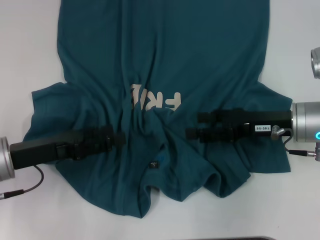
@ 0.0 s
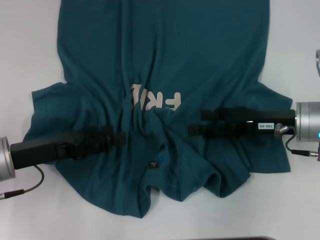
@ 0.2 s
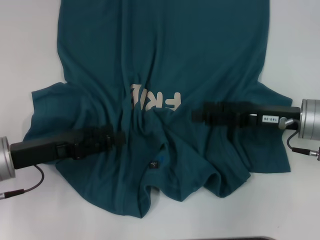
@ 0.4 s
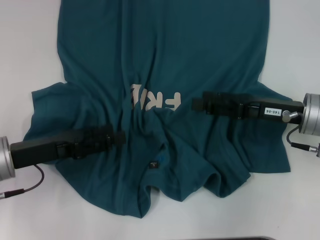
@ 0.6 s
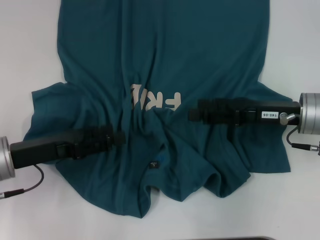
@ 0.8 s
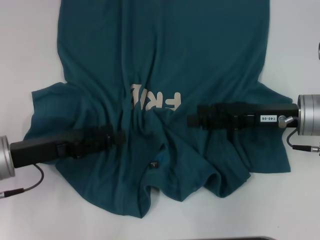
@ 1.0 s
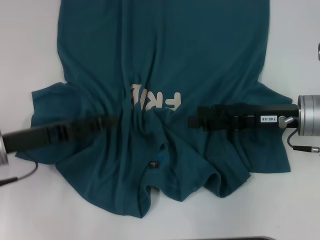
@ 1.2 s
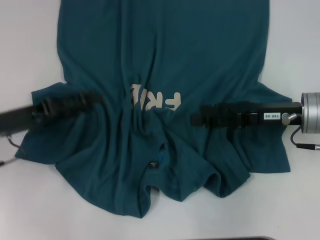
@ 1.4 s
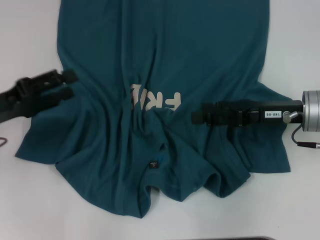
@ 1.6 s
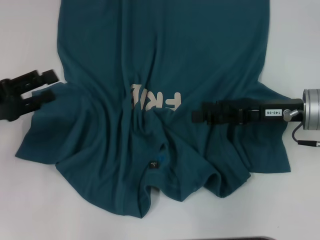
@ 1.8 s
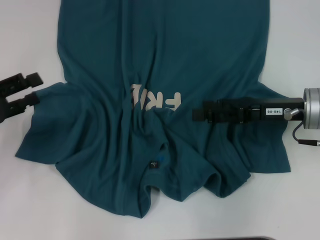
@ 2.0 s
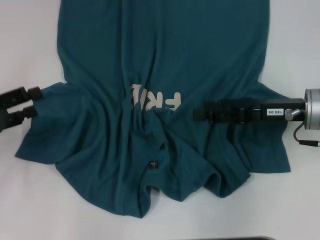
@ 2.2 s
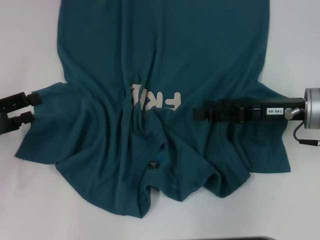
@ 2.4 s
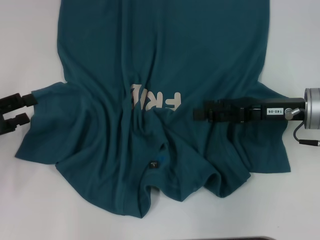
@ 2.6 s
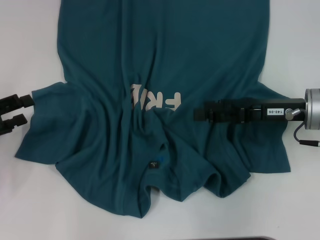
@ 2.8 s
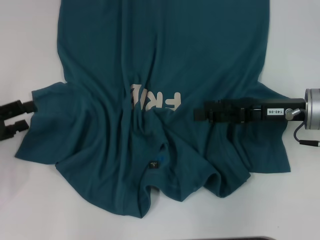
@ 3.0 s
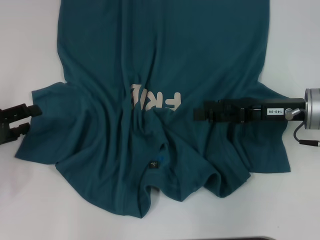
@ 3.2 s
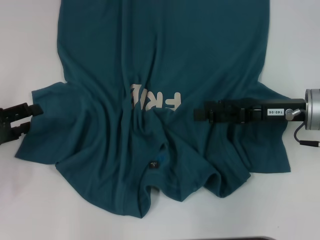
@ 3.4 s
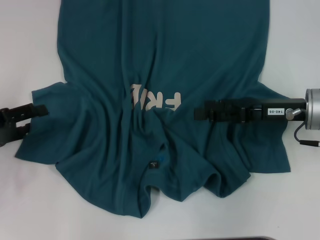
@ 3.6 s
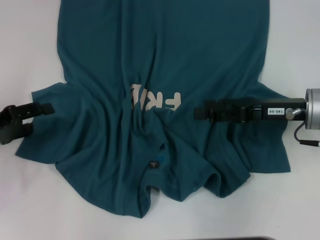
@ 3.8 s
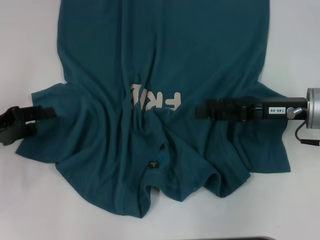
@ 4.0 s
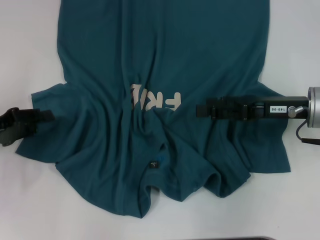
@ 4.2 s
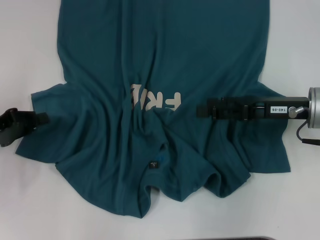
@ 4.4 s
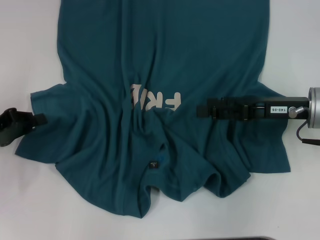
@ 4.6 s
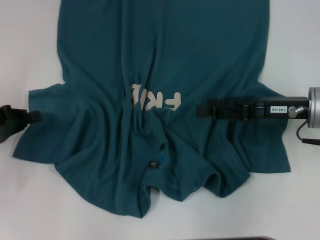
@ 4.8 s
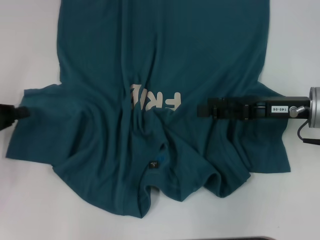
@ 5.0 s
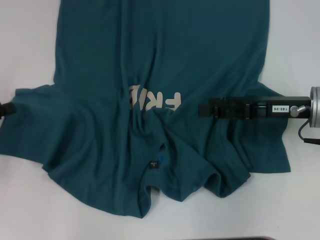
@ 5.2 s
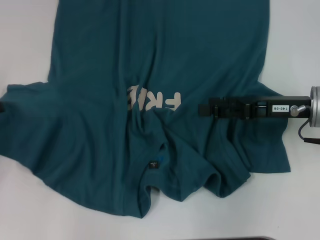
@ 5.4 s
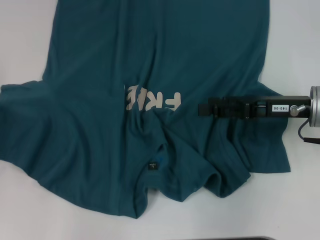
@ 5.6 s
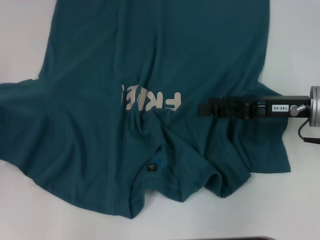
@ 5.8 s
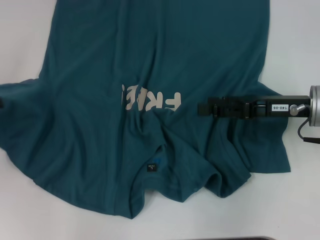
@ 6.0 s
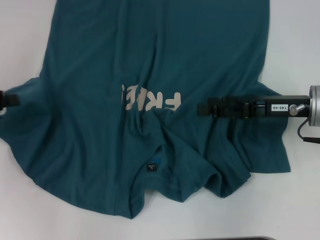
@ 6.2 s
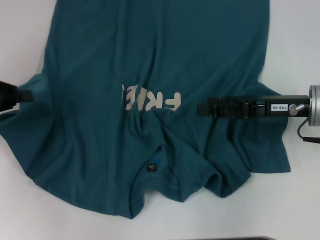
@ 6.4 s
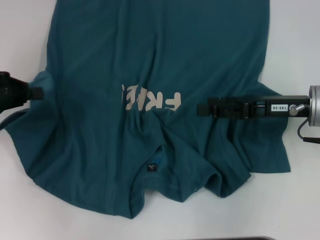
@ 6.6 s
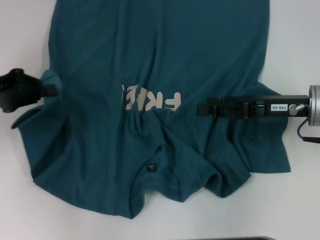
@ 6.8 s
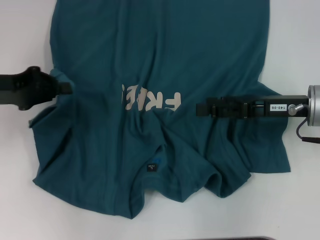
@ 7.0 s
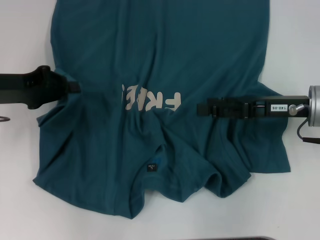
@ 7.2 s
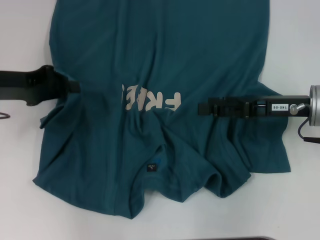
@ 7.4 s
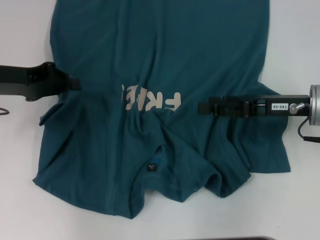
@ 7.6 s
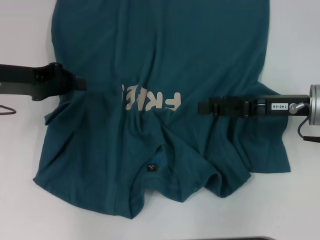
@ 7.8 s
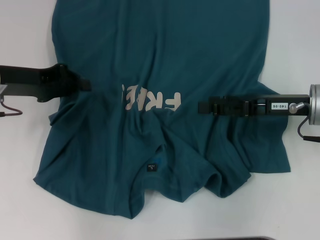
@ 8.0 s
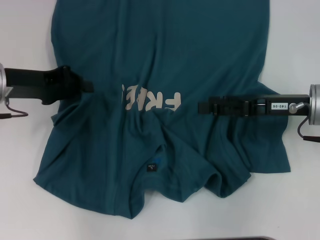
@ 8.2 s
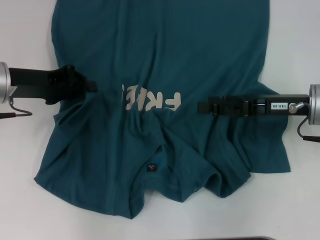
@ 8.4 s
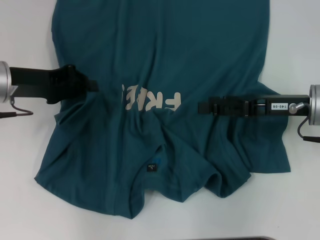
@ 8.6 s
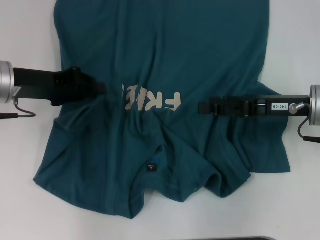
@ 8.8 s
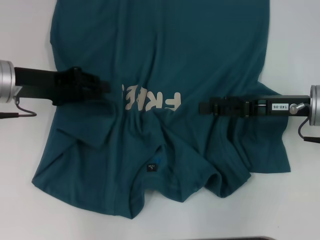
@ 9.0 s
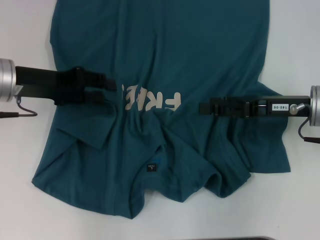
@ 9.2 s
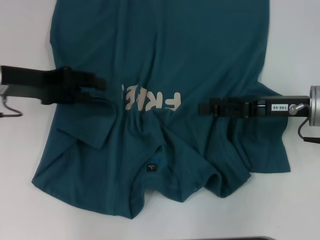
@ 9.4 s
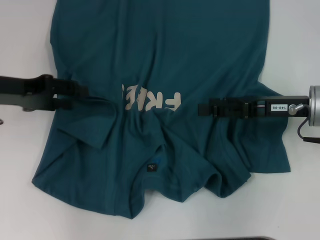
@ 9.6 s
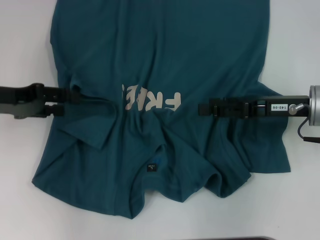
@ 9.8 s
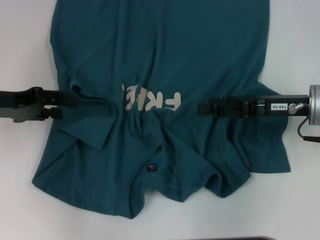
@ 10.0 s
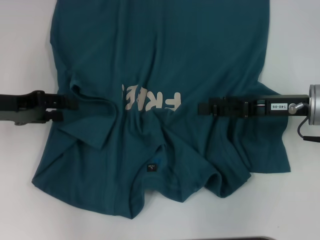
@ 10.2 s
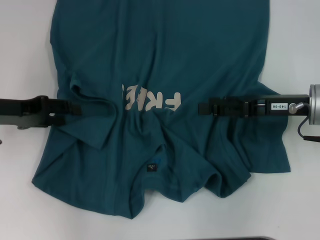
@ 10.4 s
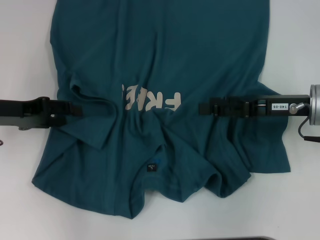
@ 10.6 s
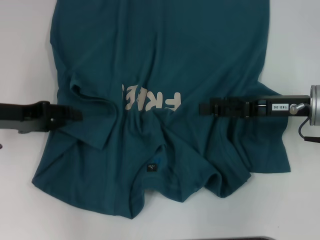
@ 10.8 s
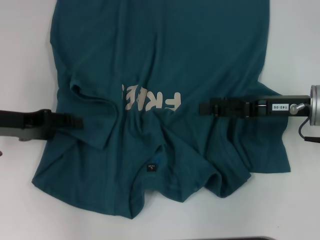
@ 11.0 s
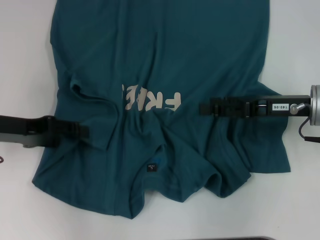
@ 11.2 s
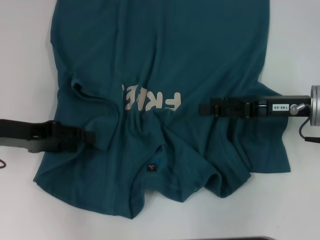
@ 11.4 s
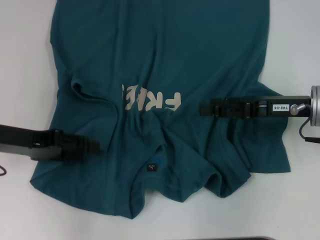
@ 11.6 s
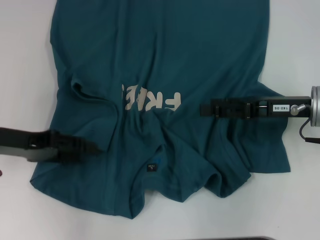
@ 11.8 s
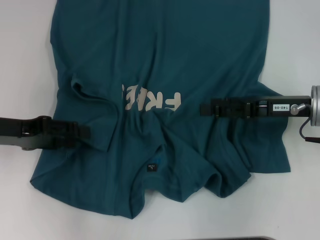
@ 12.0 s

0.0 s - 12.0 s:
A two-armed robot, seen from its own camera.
0.0 s - 1.6 s: The left gripper changes place by approximately 5 cm.
1.6 s - 3.0 s: The left gripper shifts roughly 5 cm to the left.
3.0 s - 4.4 s: The left gripper closes its fingers.
4.4 s - 6.0 s: The left gripper is displaced upward and to the left by roughly 10 cm.
6.0 s - 7.6 s: The left gripper goes roughly 10 cm to the right.
7.6 s - 9.0 s: There are only small adjustments of the grippers.
9.0 s - 10.4 s: The left gripper ends up roughly 5 cm from where it was, and opens its fingers.
10.4 s - 12.0 s: The grippers make only small movements.

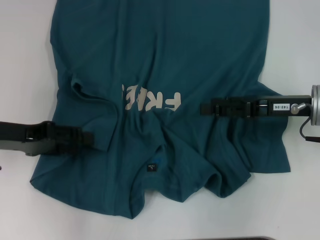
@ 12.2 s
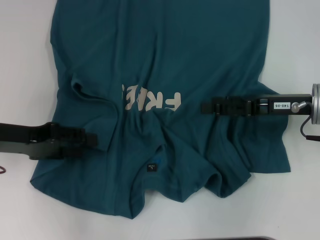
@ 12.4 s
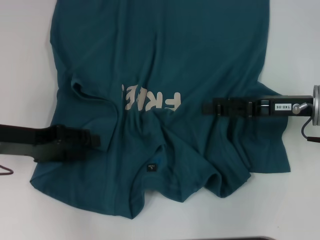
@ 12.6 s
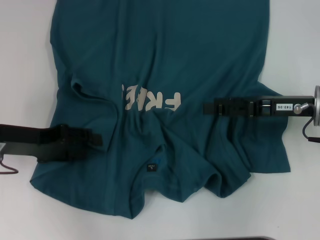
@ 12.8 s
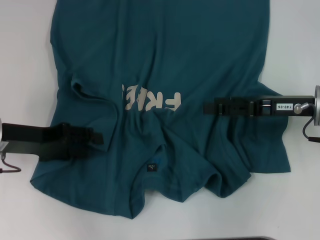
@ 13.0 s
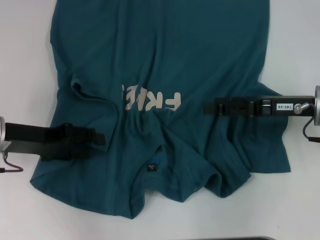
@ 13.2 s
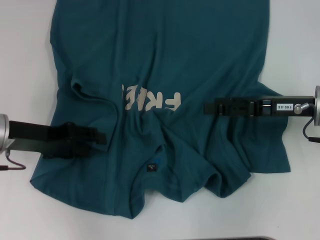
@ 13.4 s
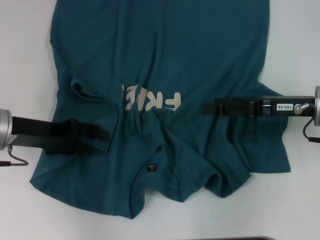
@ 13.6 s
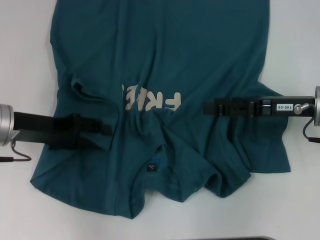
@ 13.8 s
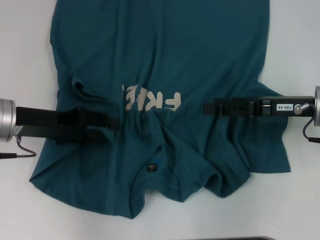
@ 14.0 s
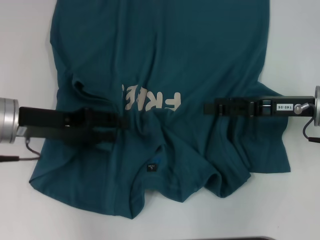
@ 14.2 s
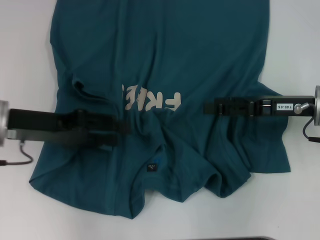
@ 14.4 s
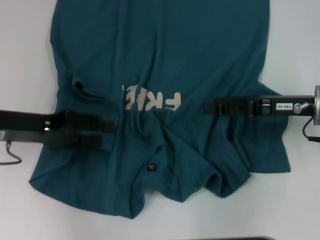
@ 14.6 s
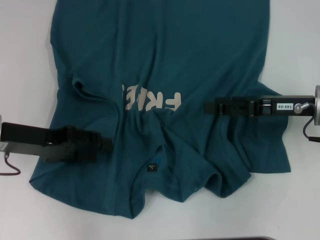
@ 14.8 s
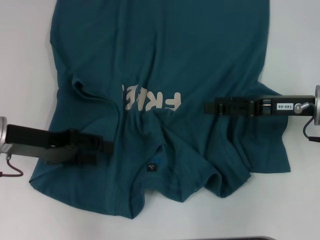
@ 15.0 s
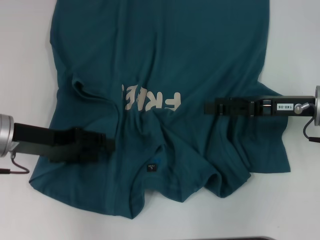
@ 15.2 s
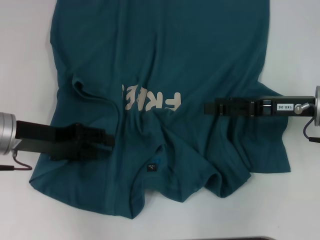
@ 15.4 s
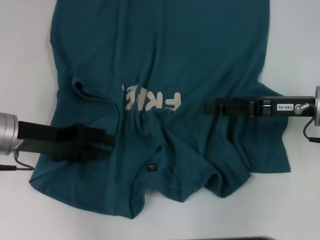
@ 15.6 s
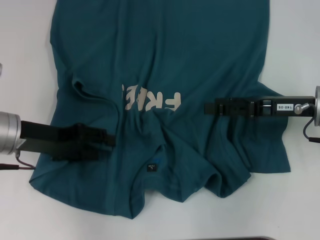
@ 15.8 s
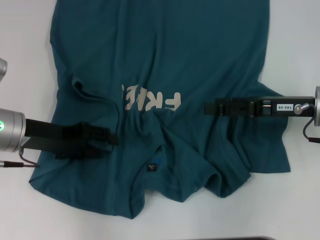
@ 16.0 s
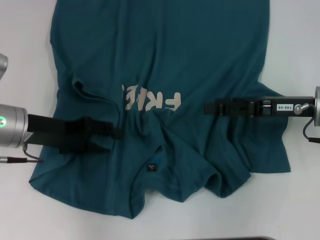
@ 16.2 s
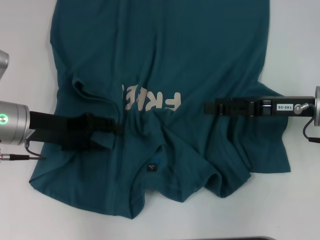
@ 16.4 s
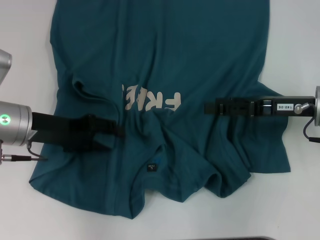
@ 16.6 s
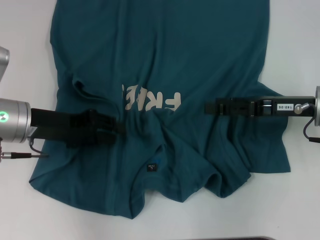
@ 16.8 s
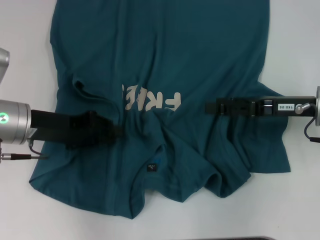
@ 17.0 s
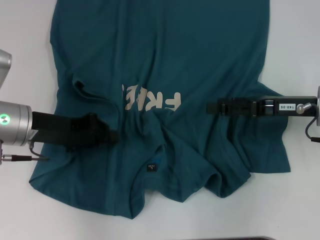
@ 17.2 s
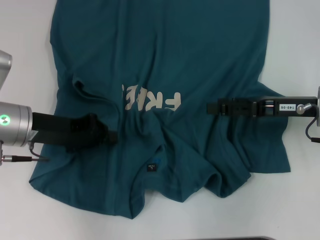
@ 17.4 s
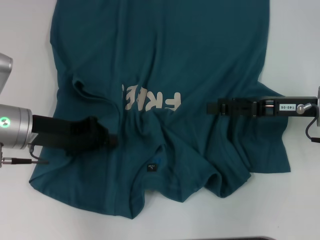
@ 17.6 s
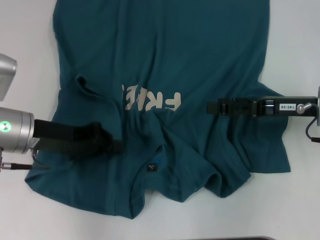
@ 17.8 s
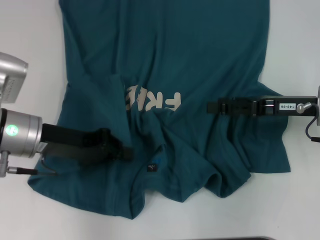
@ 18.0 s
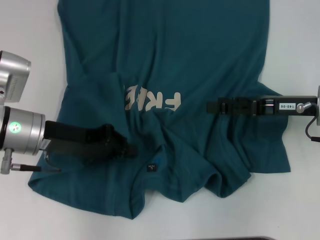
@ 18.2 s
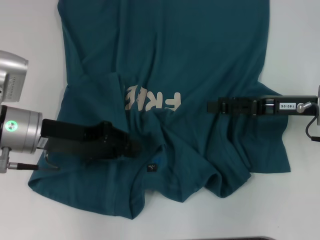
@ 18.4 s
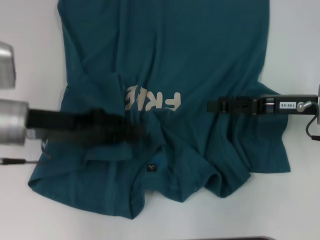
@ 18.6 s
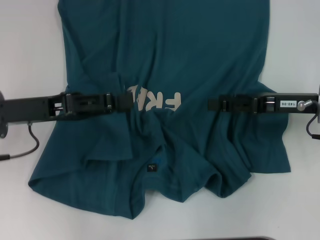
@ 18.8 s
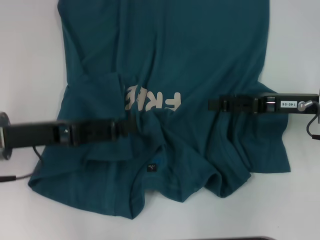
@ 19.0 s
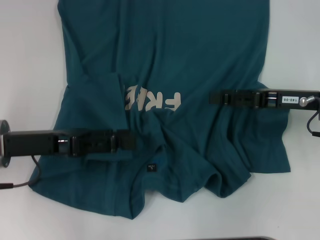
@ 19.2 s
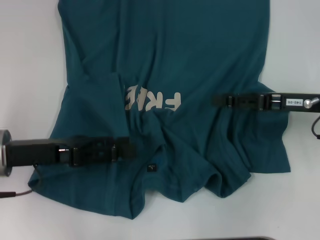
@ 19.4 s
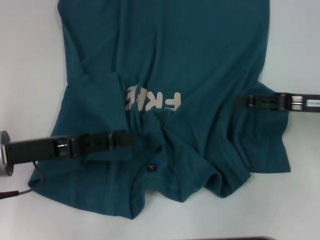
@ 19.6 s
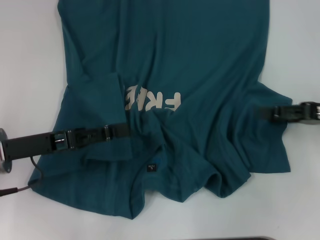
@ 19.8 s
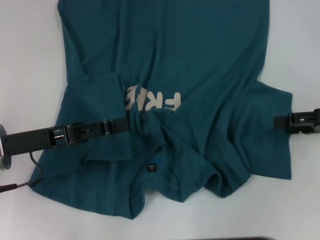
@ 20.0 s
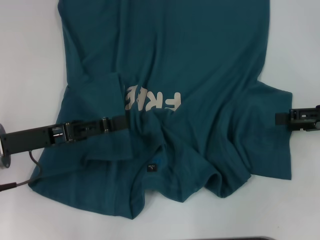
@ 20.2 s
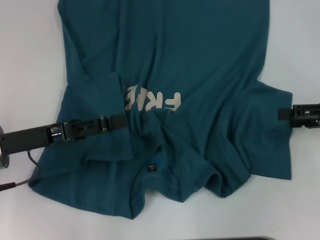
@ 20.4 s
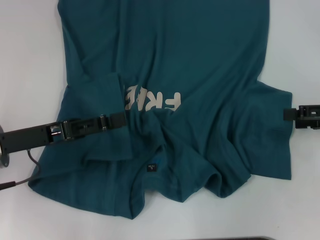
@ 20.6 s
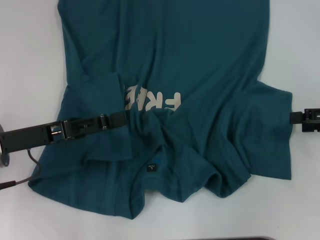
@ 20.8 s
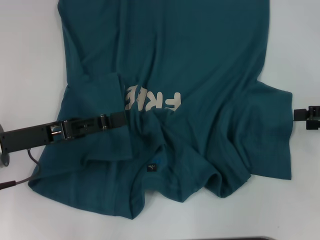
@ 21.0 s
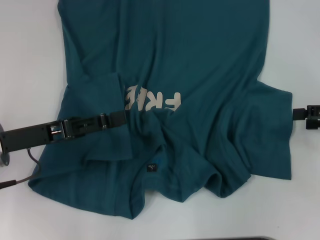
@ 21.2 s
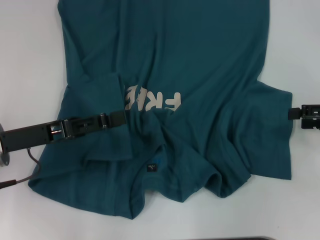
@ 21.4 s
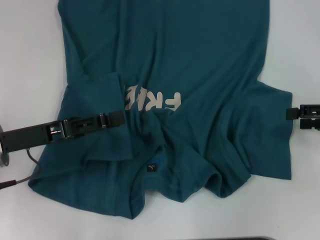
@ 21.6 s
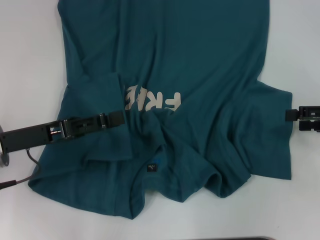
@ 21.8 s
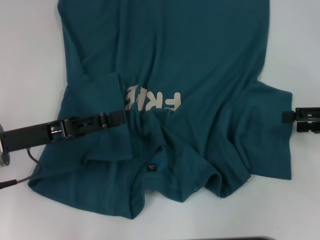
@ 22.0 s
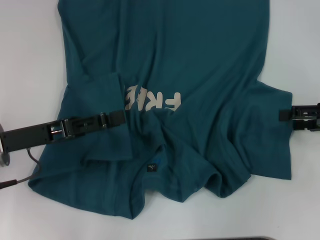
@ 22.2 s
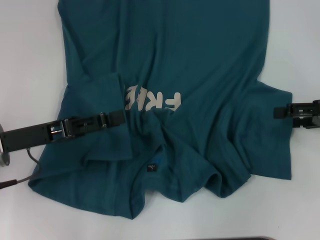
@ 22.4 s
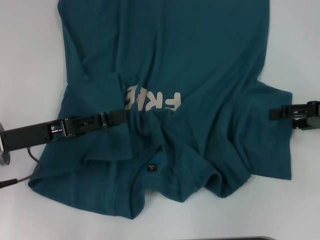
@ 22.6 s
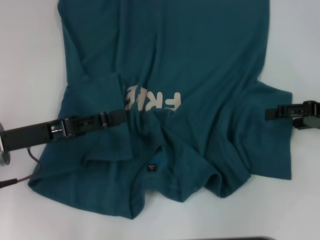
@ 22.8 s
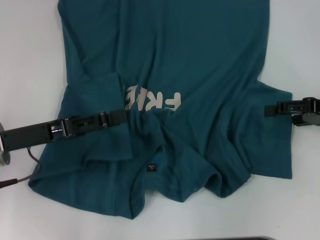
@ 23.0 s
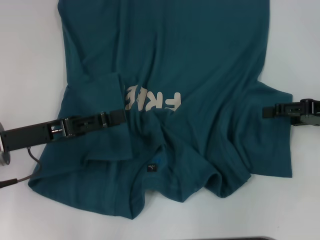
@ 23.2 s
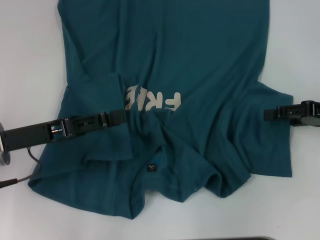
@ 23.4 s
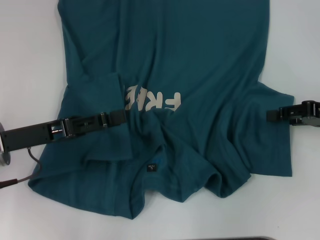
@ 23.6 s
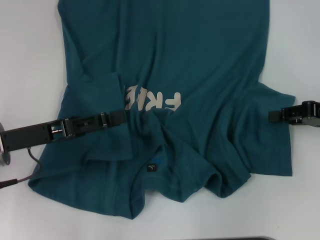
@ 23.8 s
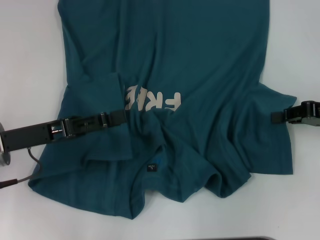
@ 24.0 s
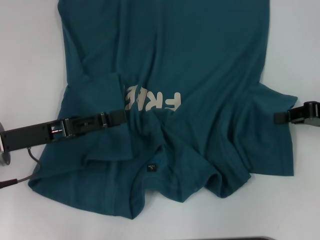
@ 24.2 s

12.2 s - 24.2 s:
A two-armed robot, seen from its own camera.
Step, 12.2 s - 19.2 s: Fold the bottom left sleeve with your left hand.
12.2 s - 16.6 s: The grippers stay close to where they were, moving slightly.
16.6 s - 18.2 s: The left gripper closes its fingers.
18.2 s - 19.8 s: The right gripper shifts about 5 cm to the right; the left gripper shifts by roughly 5 cm, and opens.
19.8 s - 22.6 s: There are only small adjustments of the grippers.
22.6 s - 24.2 s: The right gripper closes up.
